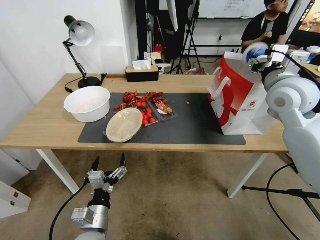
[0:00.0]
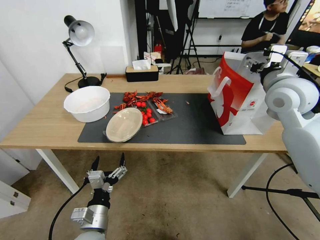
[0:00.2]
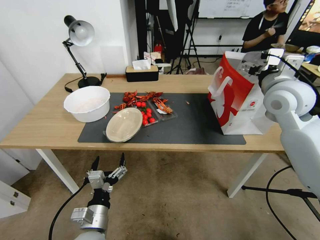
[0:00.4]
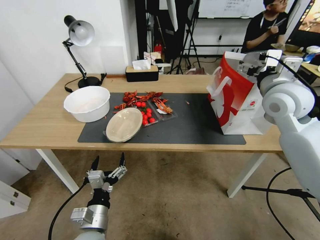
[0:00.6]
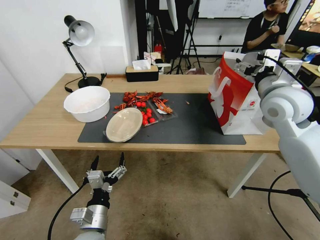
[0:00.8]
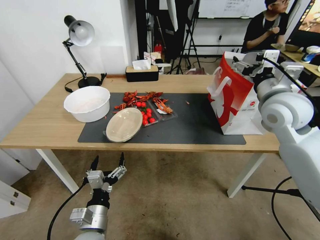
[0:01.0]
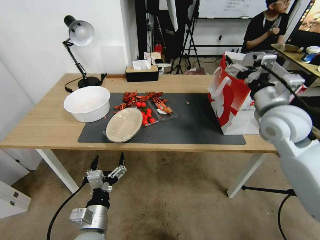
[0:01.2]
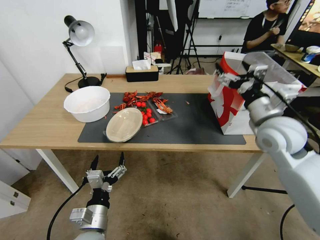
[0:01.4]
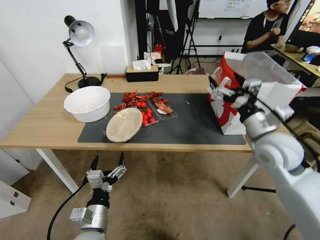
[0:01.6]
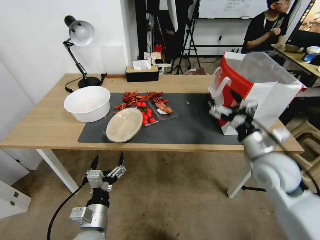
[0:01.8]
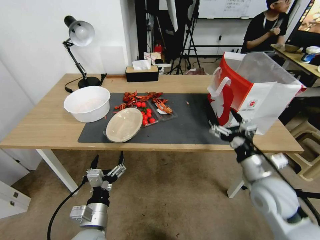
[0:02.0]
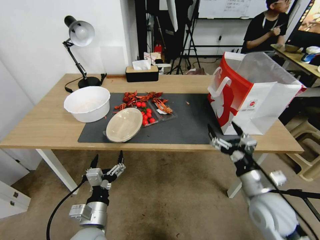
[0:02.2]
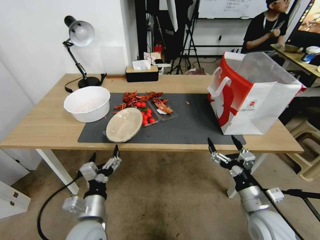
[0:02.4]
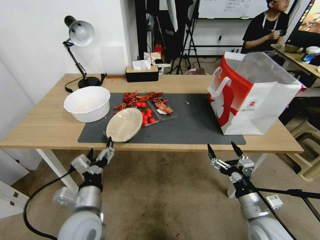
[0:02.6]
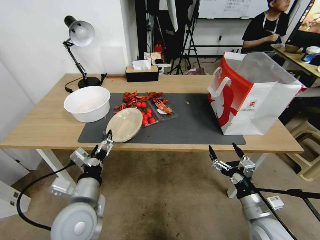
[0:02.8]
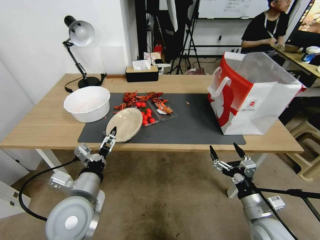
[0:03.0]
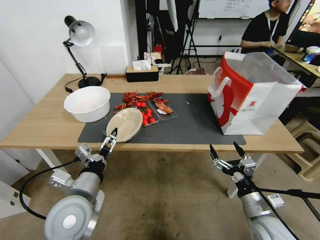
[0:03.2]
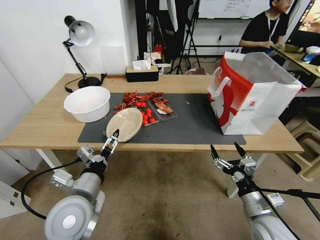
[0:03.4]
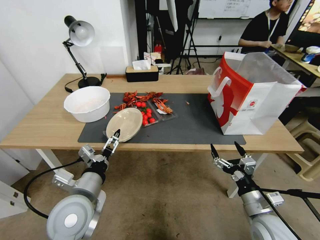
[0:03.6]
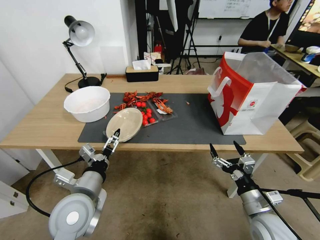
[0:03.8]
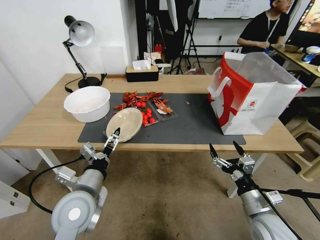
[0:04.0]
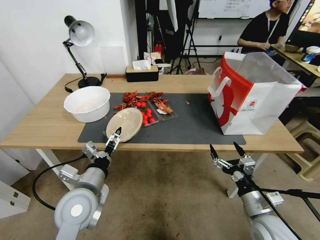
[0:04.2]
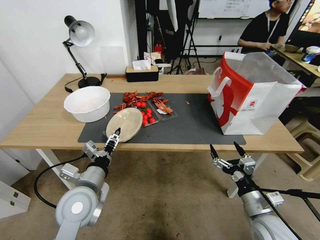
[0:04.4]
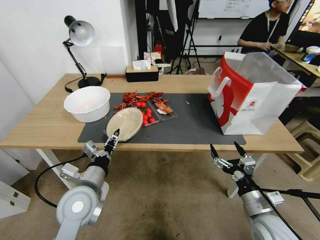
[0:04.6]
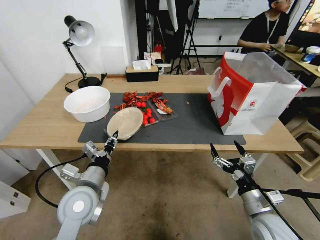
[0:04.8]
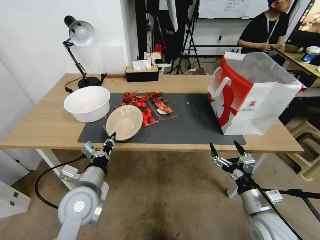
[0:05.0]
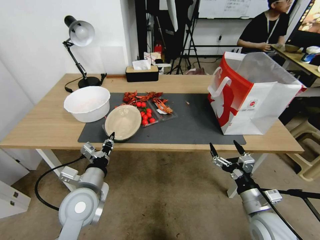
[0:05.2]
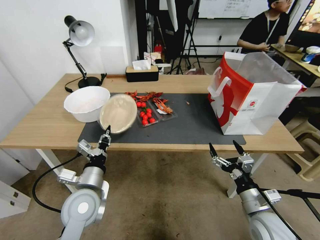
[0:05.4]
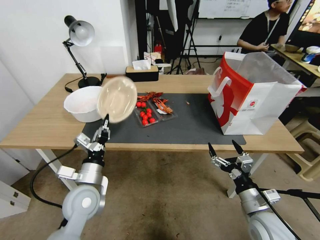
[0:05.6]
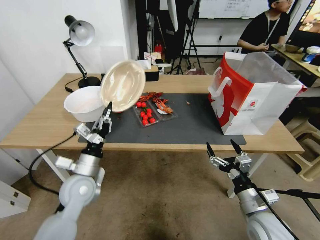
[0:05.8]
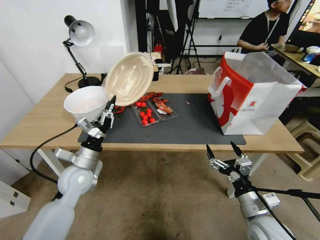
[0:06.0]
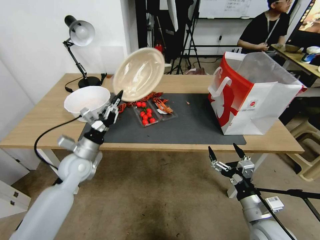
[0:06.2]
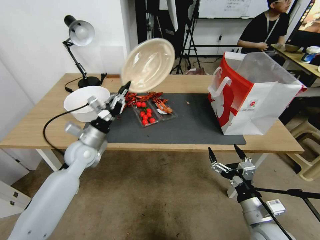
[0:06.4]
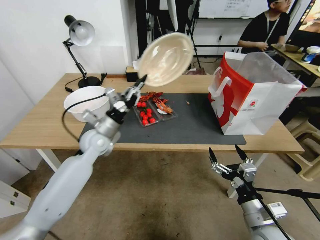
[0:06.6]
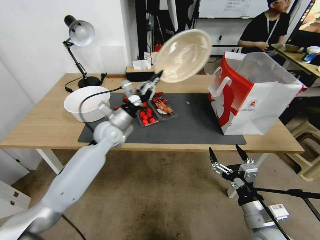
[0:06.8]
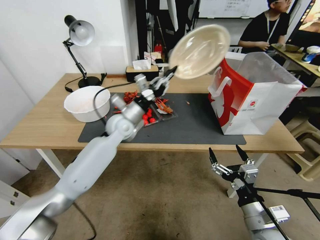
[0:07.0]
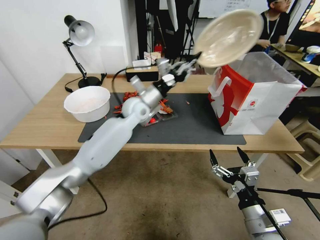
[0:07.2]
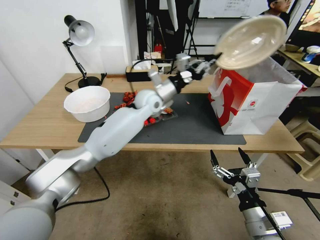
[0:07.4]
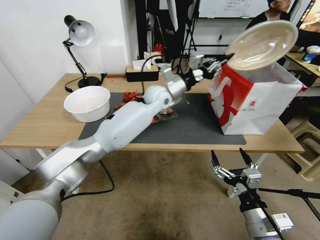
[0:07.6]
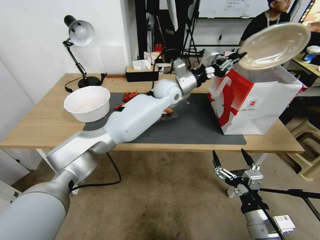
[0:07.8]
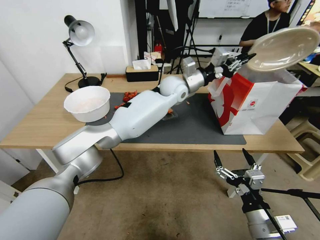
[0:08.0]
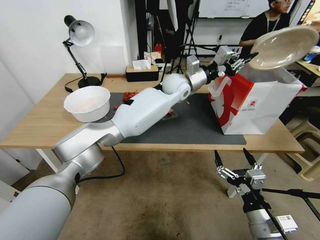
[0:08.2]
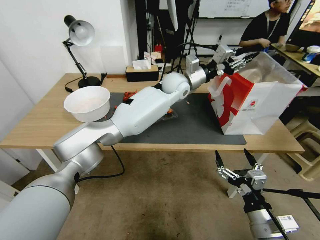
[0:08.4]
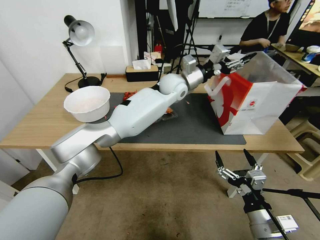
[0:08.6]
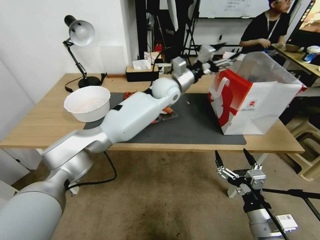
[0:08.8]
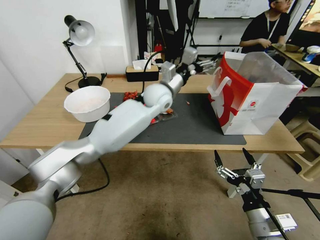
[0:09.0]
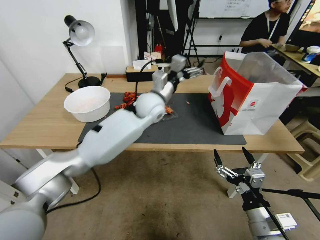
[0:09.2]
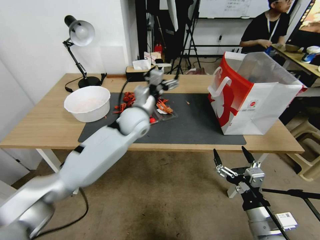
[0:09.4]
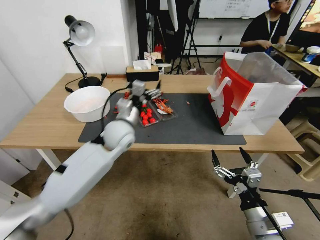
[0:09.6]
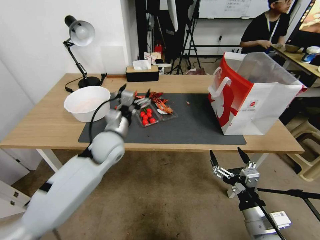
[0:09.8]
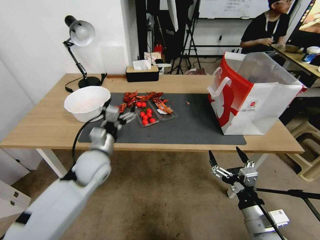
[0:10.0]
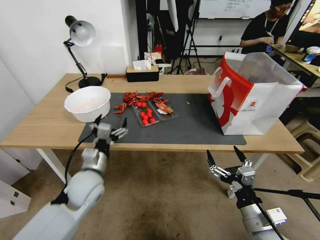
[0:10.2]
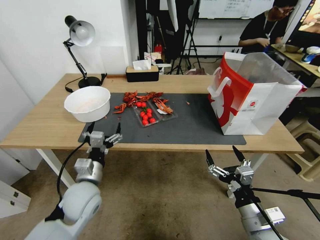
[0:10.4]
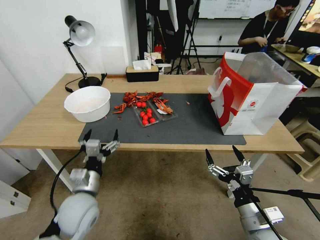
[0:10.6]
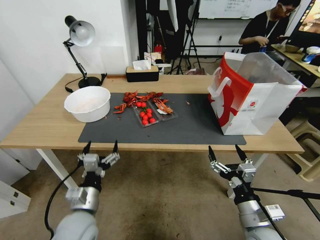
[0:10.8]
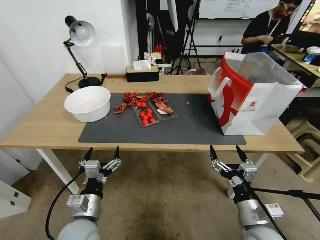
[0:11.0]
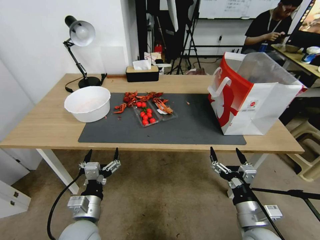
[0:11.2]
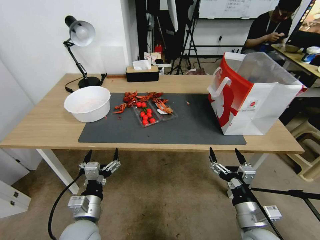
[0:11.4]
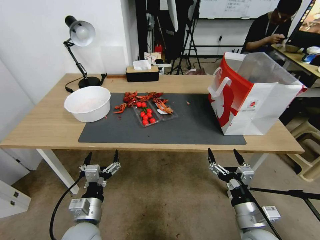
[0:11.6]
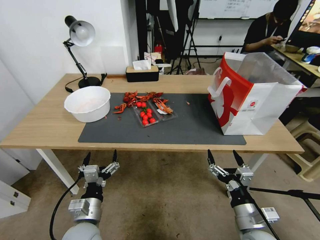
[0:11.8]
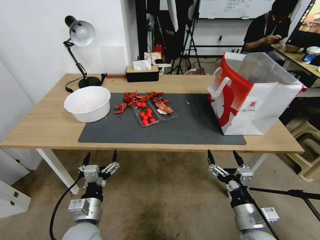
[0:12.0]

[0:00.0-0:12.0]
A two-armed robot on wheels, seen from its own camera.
0:00.0 to 0:01.6: The right gripper is displaced downward and backward by roughly 10 cm, and opens up.
0:01.6 to 0:03.0: The right gripper is displaced downward and backward by about 25 cm.
0:03.0 to 0:04.4: The left gripper is displaced upward by roughly 5 cm.
0:04.4 to 0:06.0: The left gripper shifts about 10 cm forward and to the left, and closes up.
0:06.0 to 0:07.6: The right gripper shifts by some 5 cm. Meanwhile the left gripper heads to the right, forward and upward, covering some 35 cm.
0:07.6 to 0:09.0: The left gripper opens up.
0:09.0 to 0:10.4: The left gripper goes approximately 40 cm backward, to the left and downward.
0:10.4 to 0:12.0: The left gripper goes some 10 cm backward and downward.
